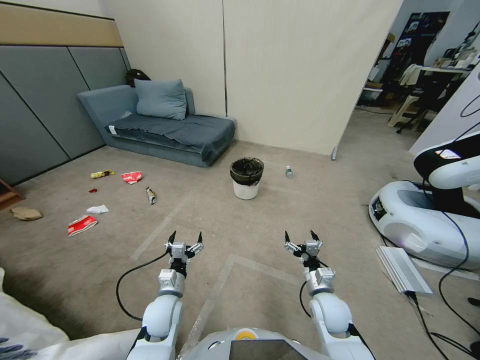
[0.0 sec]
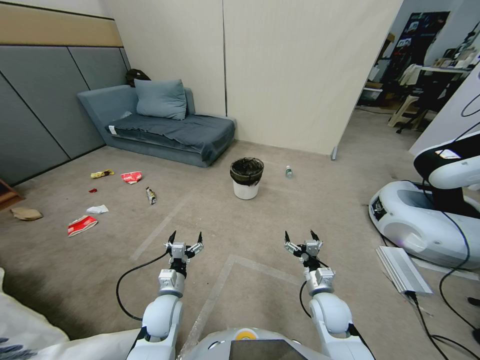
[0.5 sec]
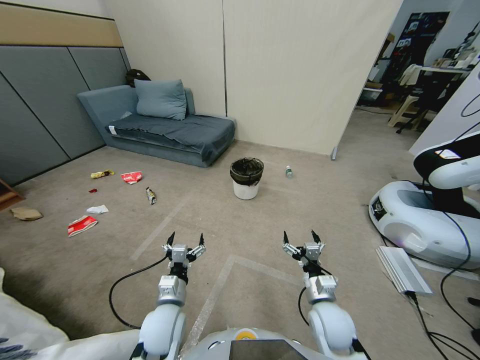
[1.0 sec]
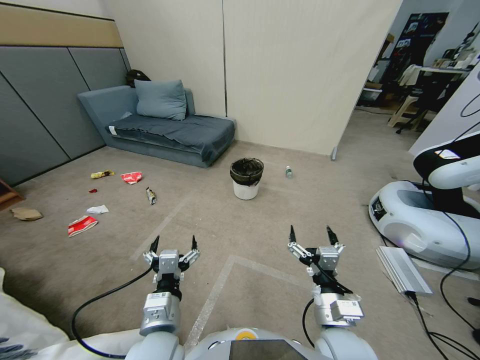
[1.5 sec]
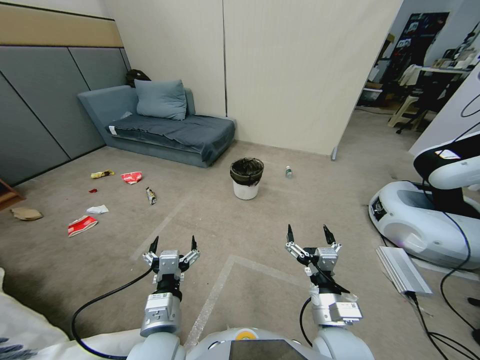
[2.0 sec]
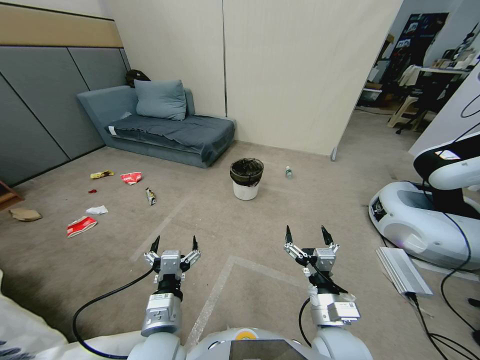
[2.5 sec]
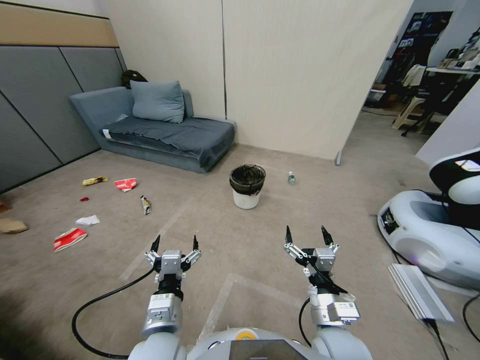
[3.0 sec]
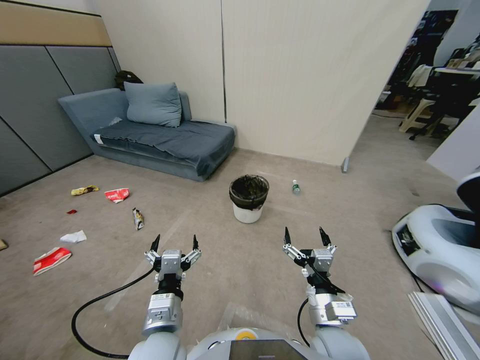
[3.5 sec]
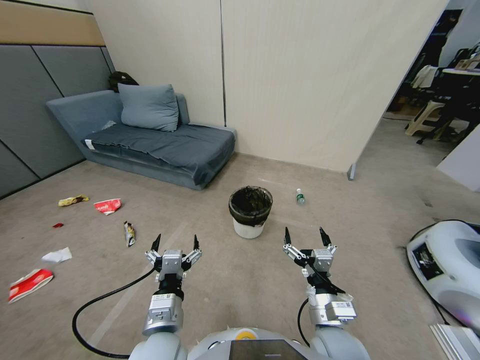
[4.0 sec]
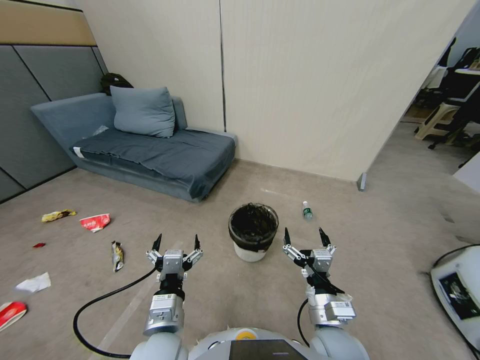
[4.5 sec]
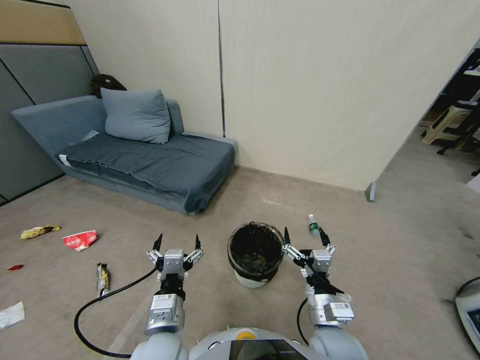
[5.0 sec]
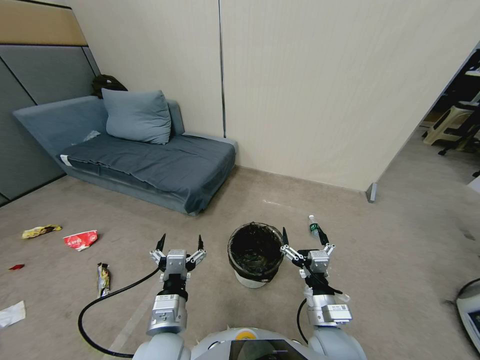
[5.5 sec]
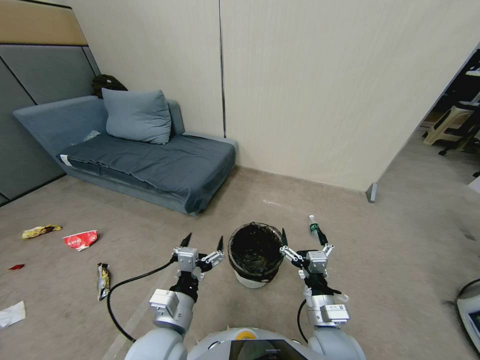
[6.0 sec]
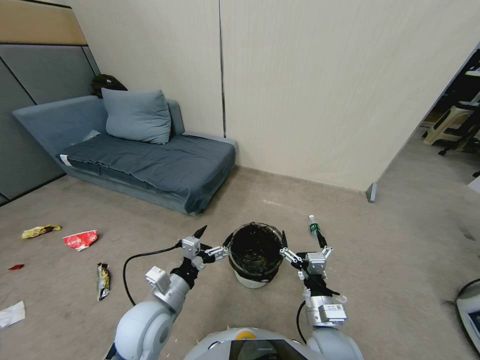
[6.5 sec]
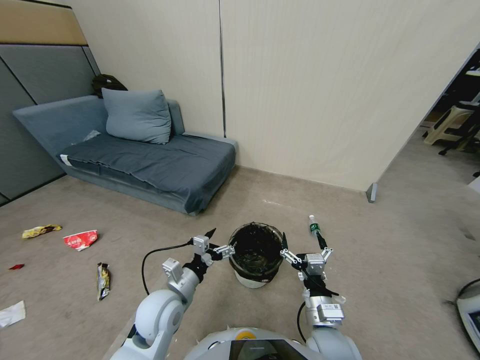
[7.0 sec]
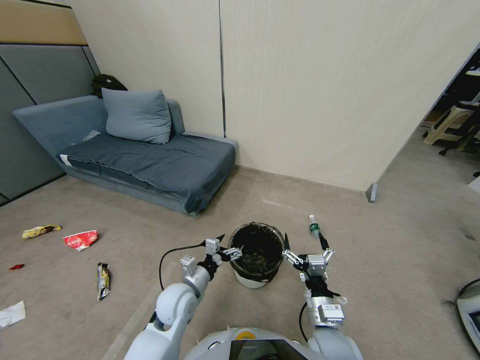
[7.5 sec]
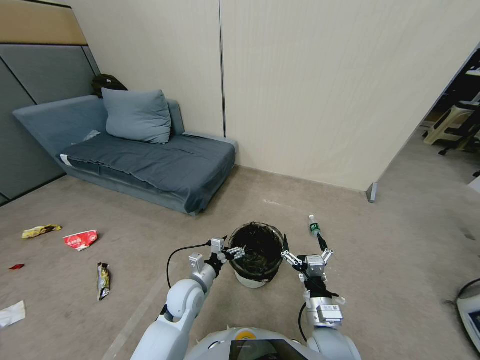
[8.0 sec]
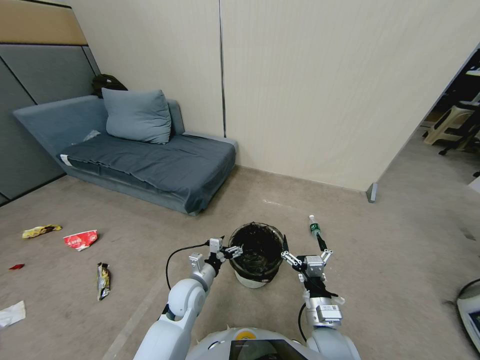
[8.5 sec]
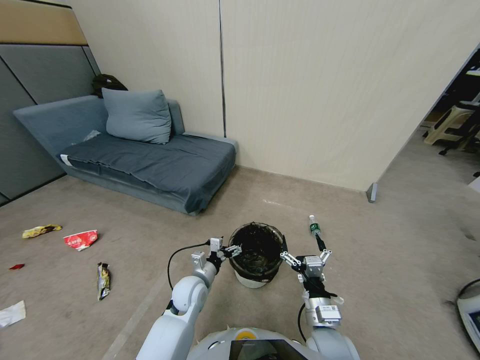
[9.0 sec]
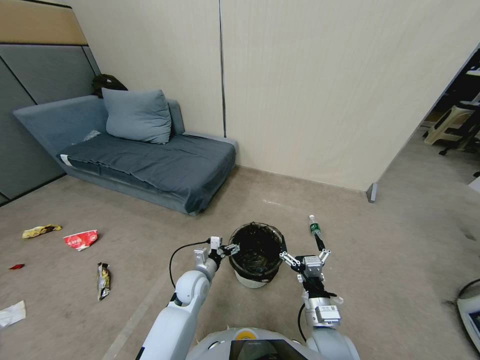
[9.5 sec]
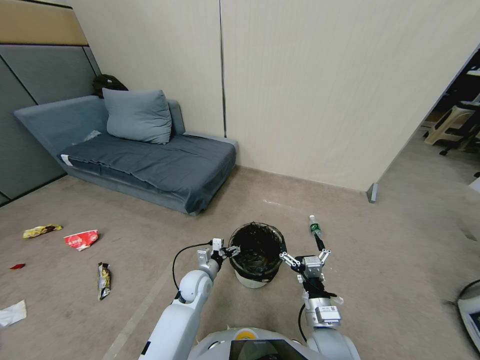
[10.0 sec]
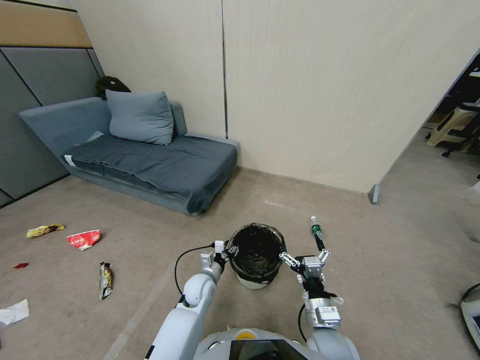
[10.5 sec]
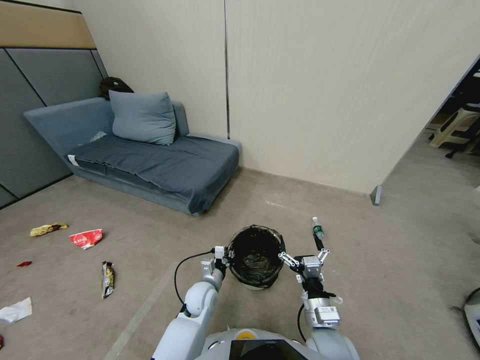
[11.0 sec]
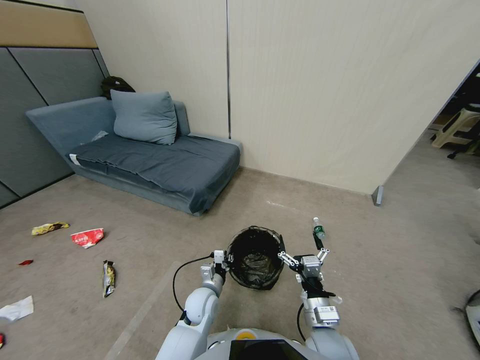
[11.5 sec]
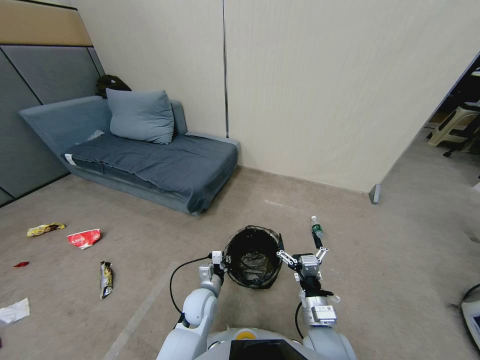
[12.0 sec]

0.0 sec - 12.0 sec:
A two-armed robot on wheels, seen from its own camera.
Task of the whole recording: Pick up the trash bin, then pick up the garbage from the floor and place it into the trash bin.
6.0 sec - 8.0 sec: The left gripper moves forward and downward, some 15 cm.
8.0 sec - 10.0 sec: The left gripper shifts some 5 cm downward.
10.0 sec - 12.0 sec: The left gripper moves backward, some 5 cm, and closes.

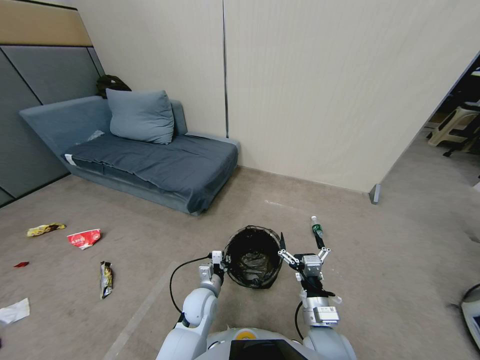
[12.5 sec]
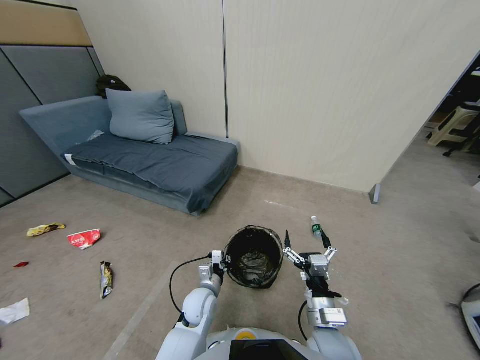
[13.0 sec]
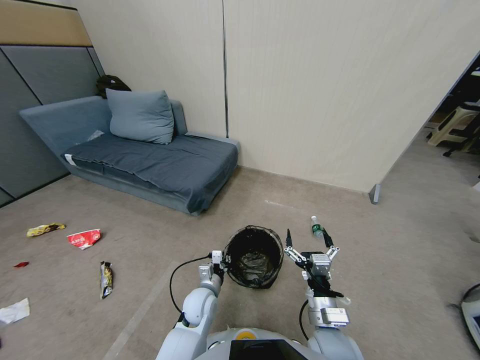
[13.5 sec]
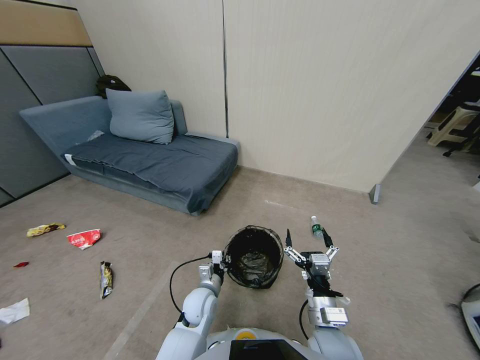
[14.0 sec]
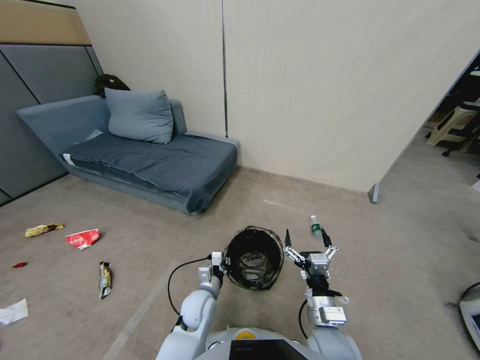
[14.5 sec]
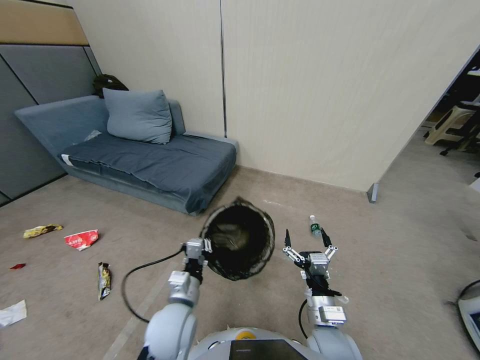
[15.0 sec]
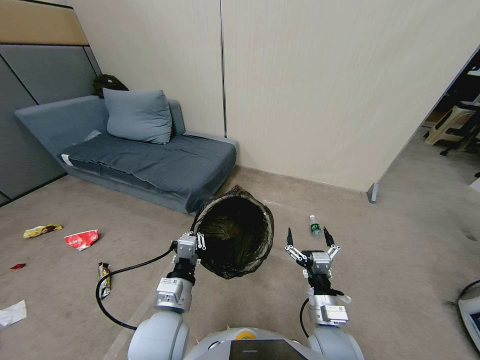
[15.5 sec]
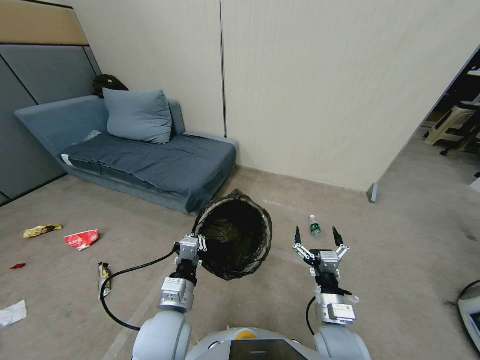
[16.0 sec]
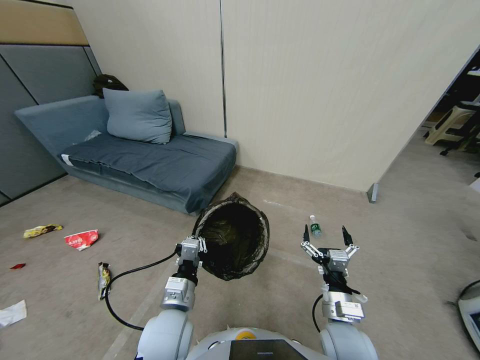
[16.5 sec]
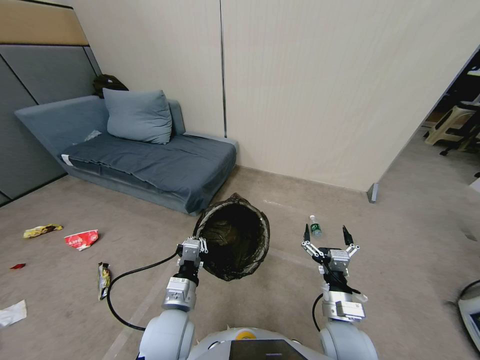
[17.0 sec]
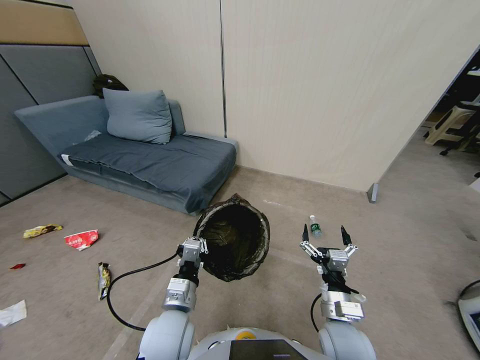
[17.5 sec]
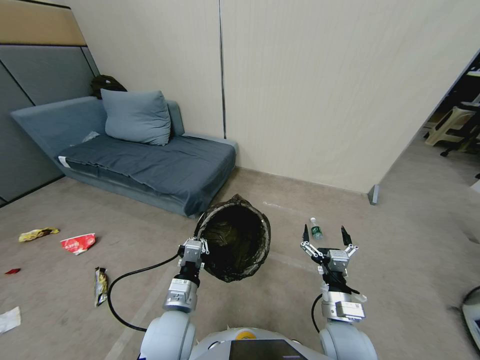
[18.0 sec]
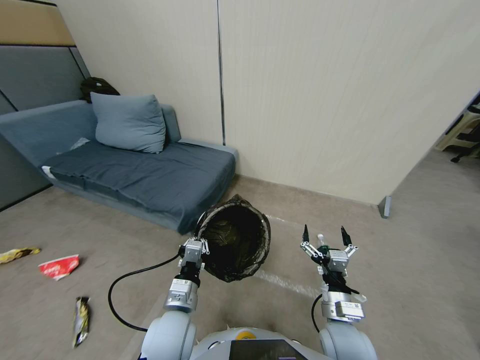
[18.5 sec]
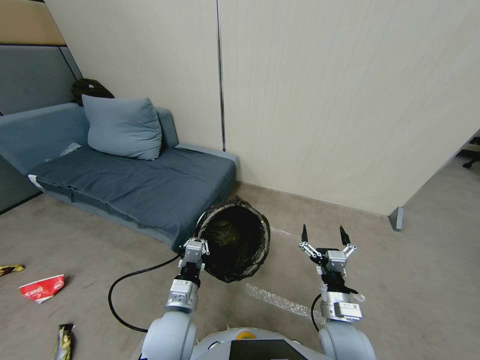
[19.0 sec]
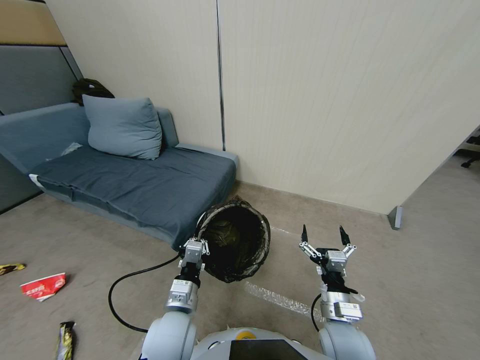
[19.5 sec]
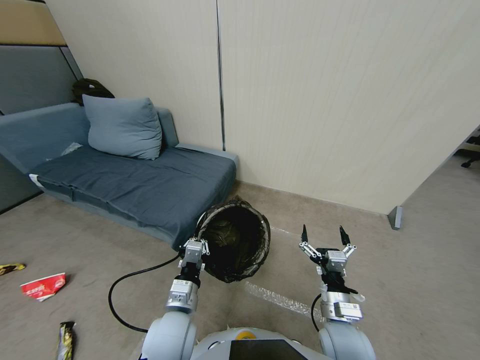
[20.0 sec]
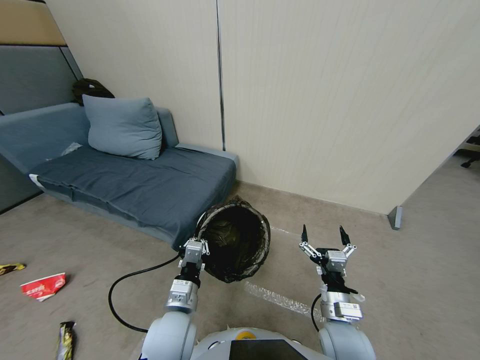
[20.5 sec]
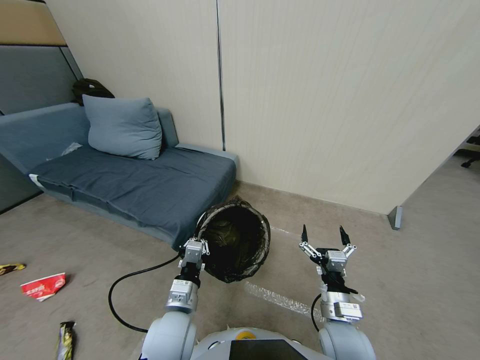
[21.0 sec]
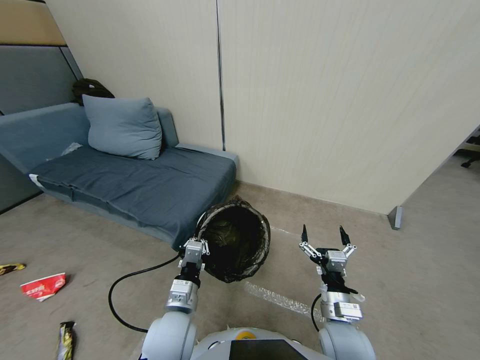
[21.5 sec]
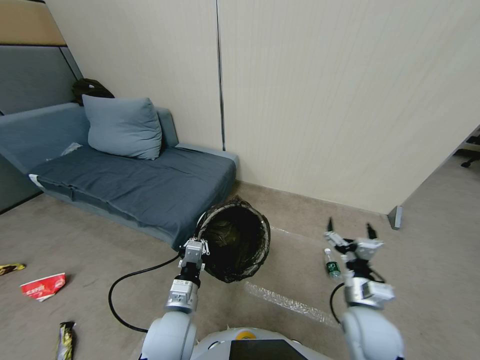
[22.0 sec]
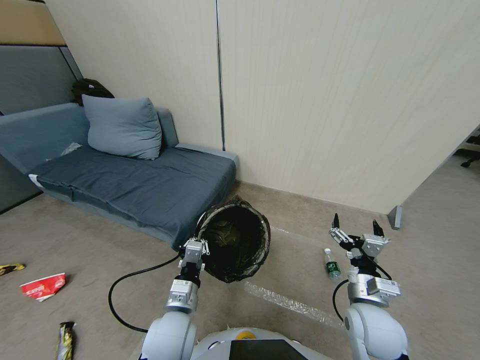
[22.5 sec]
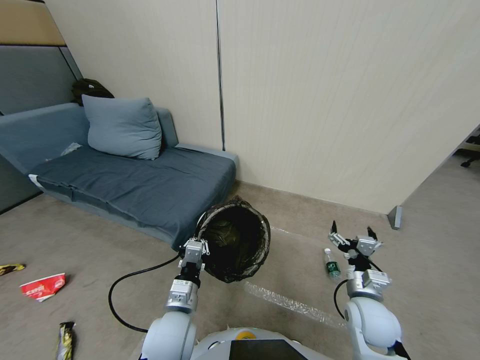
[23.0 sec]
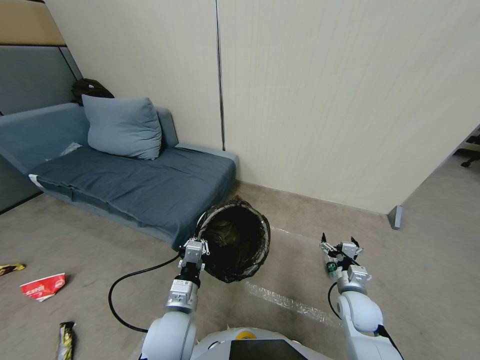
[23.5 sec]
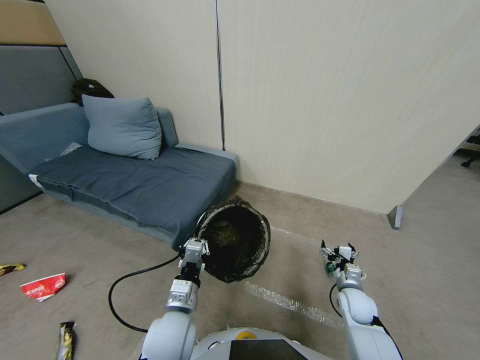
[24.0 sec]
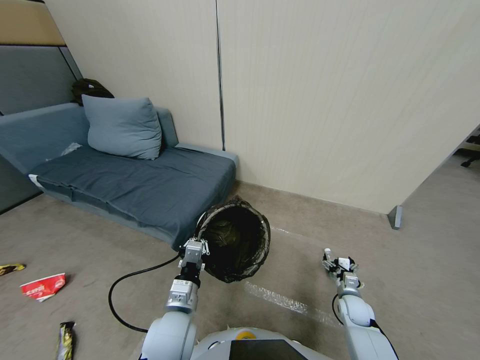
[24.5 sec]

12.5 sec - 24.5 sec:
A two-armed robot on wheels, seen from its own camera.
Task of the whole recording: Pick up the trash bin, then pick up the garbage from the floor and place it into the trash bin.
12.5 sec - 14.5 sec: The grippers make only small movements.
14.5 sec - 16.5 sec: The left gripper shifts about 10 cm upward and backward.
16.5 sec - 20.5 sec: Both grippers stay put.
20.5 sec - 22.5 sec: The right gripper moves to the right, about 5 cm.
22.5 sec - 24.5 sec: The right gripper moves downward and to the right, approximately 25 cm.

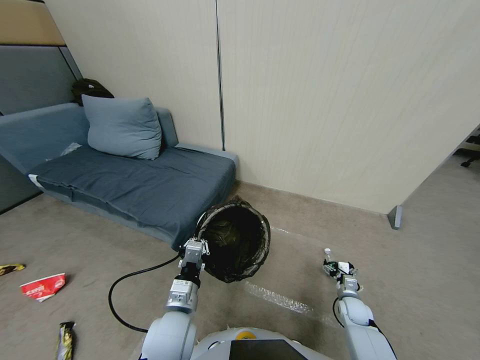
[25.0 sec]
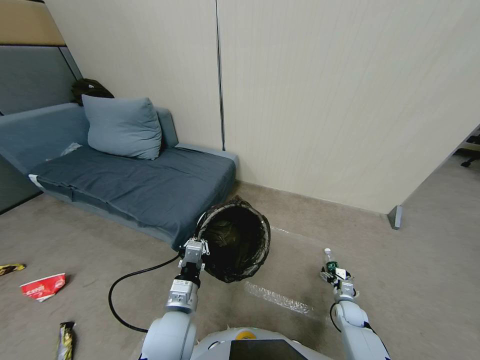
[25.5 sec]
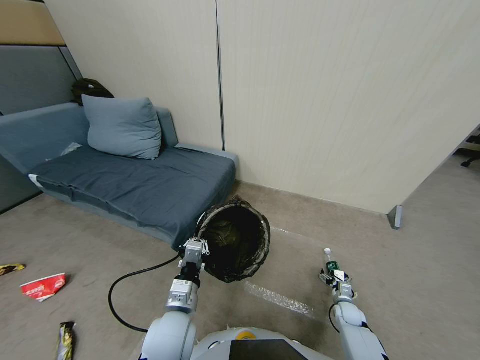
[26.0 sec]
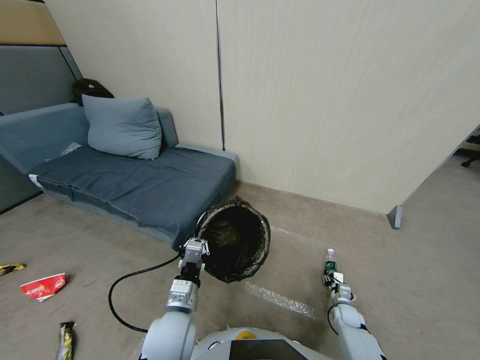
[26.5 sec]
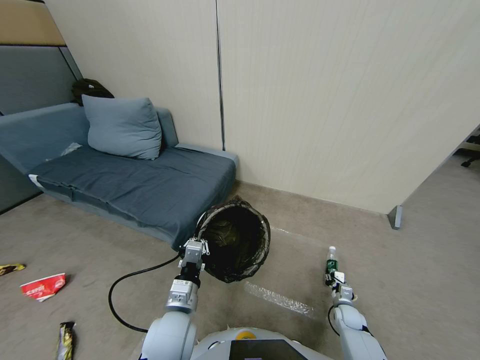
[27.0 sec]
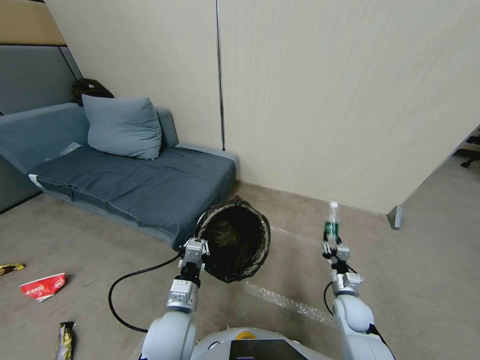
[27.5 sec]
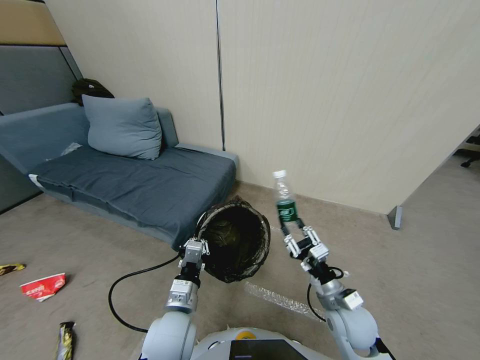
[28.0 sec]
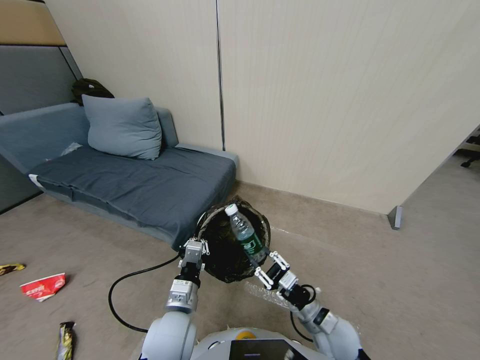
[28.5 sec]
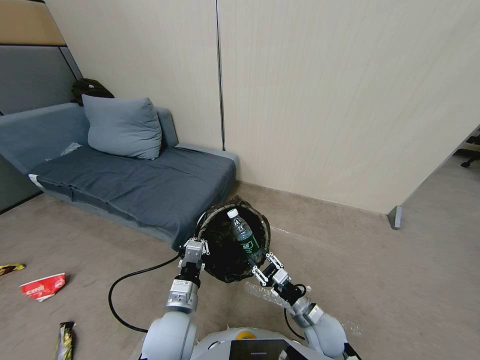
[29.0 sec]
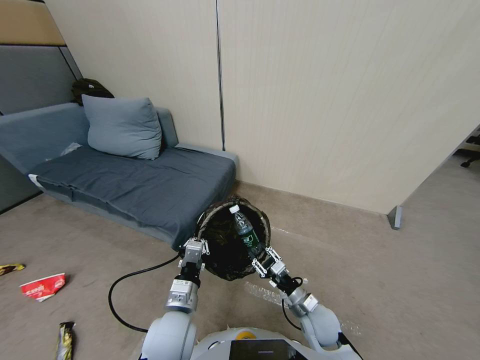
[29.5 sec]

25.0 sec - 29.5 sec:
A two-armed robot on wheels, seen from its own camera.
Task of the whole recording: Pick up the trash bin, then pick up the garbage from the floor and place it into the trash bin.
25.0 sec - 27.0 sec: The right gripper closes its fingers.
27.0 sec - 29.5 sec: The right gripper heads to the left and upward, covering some 25 cm.
